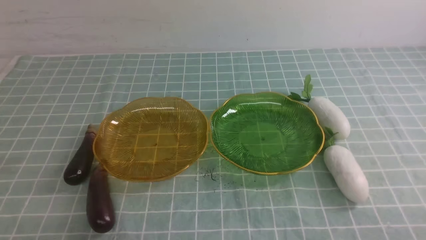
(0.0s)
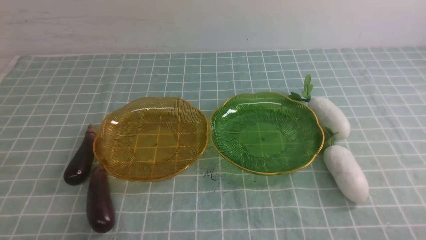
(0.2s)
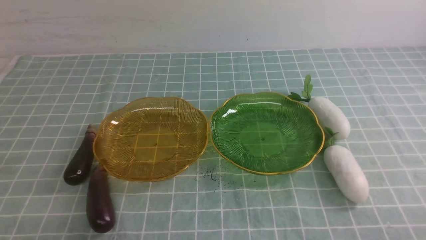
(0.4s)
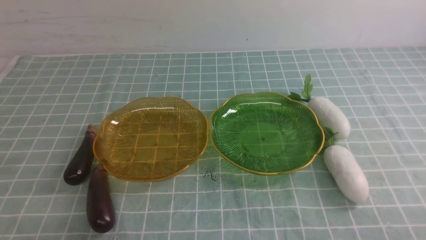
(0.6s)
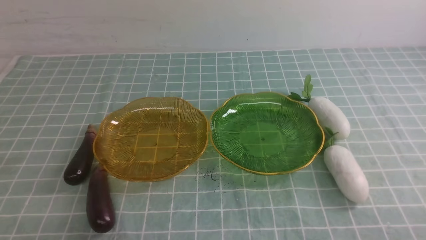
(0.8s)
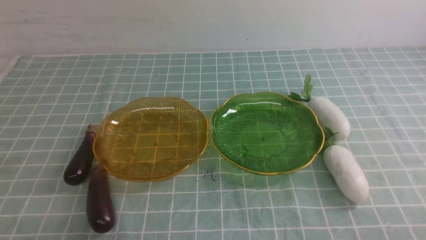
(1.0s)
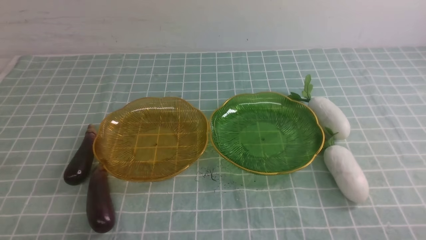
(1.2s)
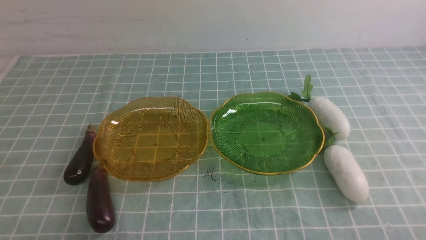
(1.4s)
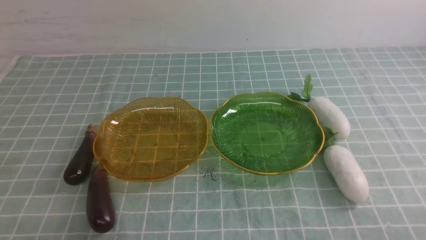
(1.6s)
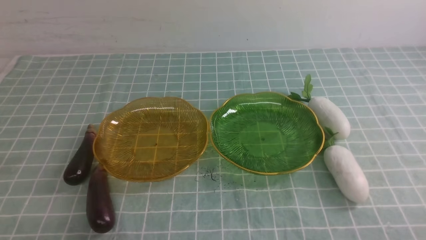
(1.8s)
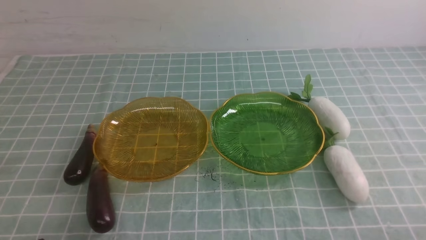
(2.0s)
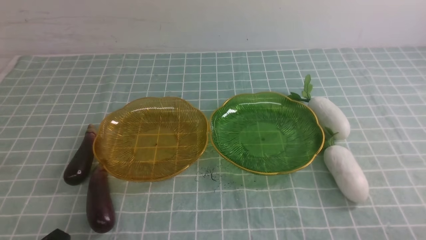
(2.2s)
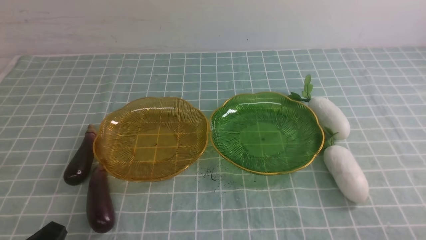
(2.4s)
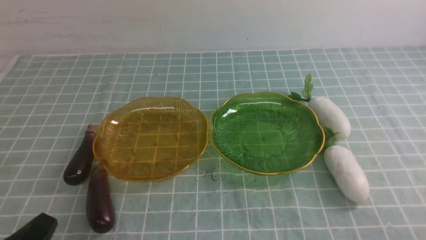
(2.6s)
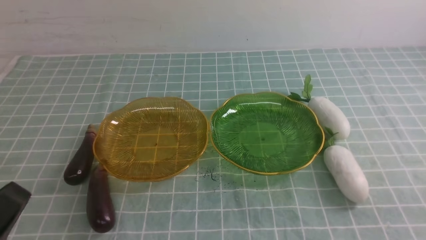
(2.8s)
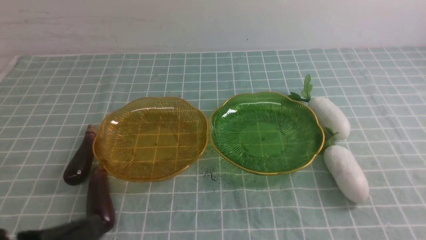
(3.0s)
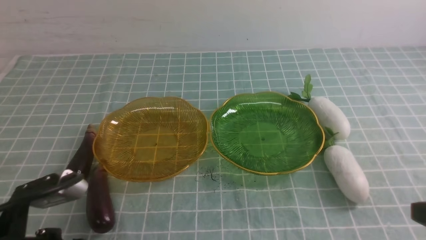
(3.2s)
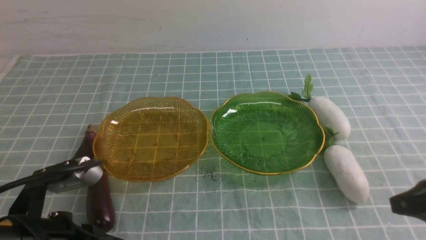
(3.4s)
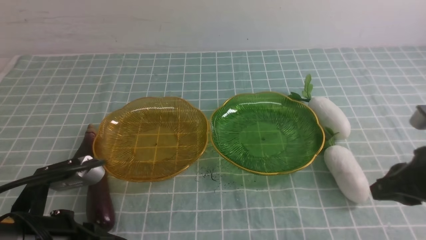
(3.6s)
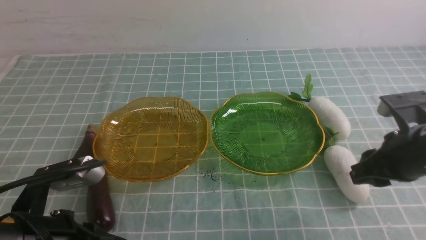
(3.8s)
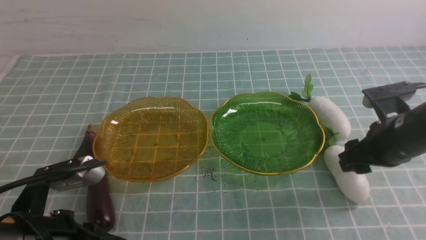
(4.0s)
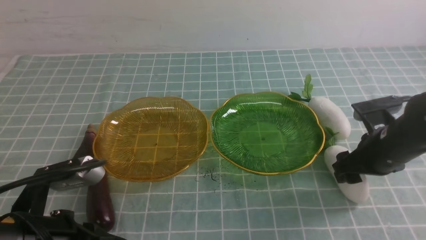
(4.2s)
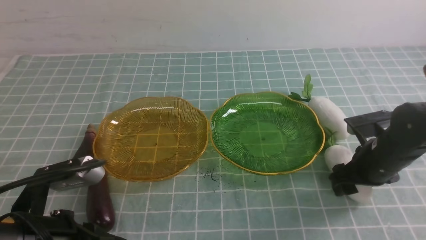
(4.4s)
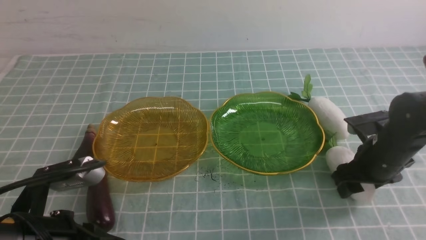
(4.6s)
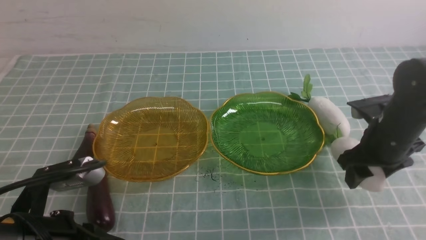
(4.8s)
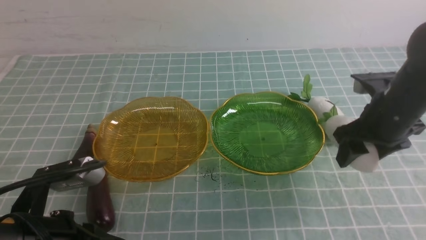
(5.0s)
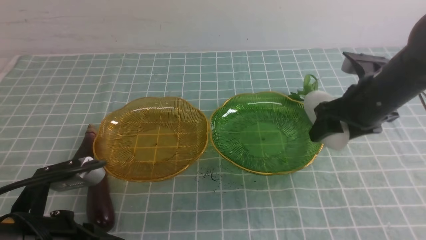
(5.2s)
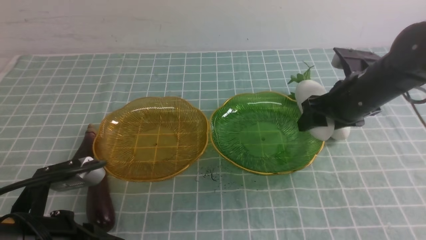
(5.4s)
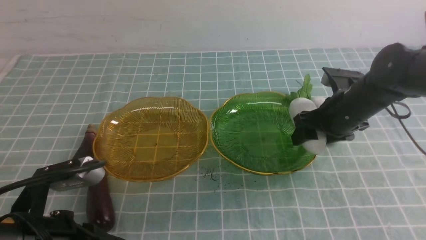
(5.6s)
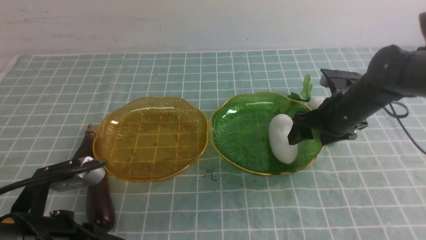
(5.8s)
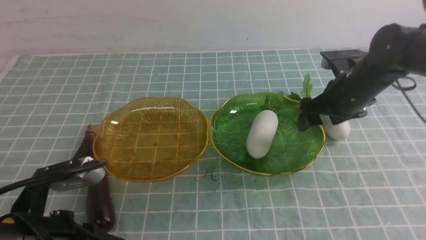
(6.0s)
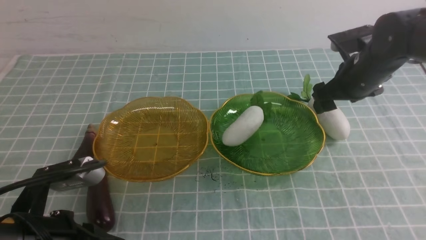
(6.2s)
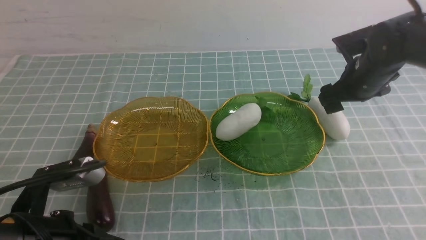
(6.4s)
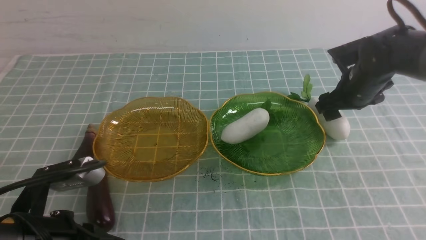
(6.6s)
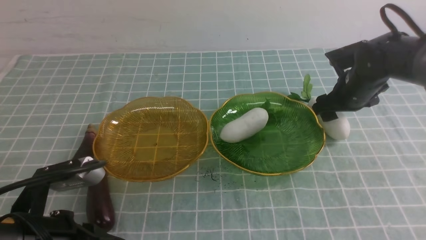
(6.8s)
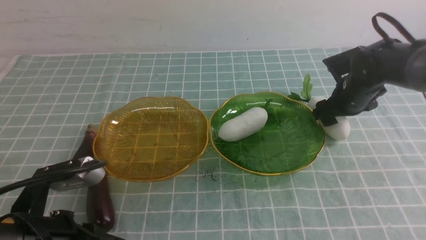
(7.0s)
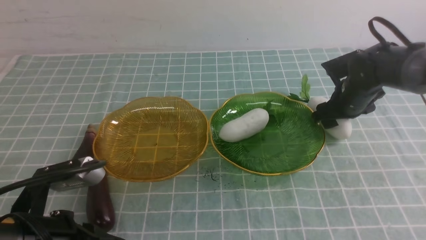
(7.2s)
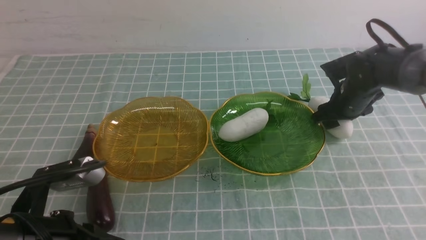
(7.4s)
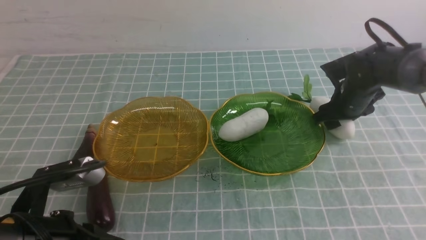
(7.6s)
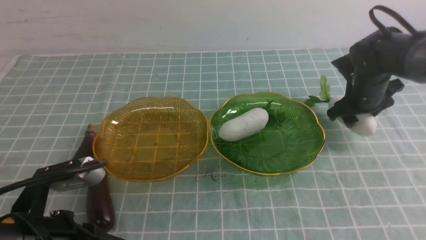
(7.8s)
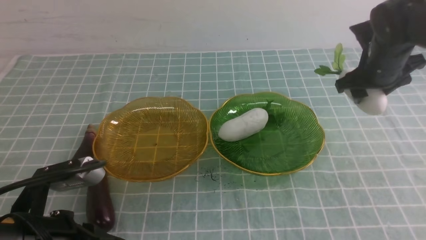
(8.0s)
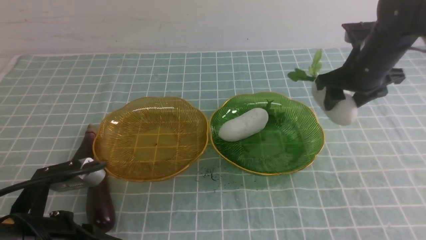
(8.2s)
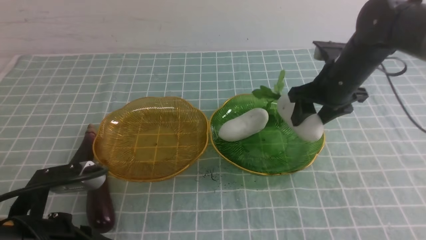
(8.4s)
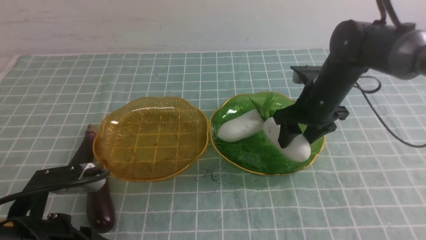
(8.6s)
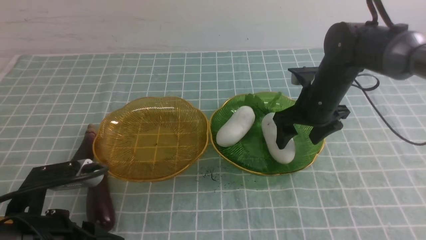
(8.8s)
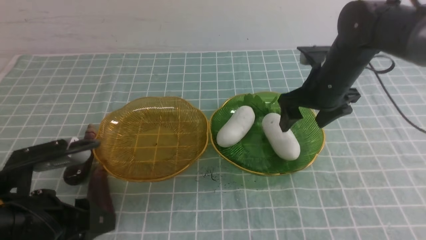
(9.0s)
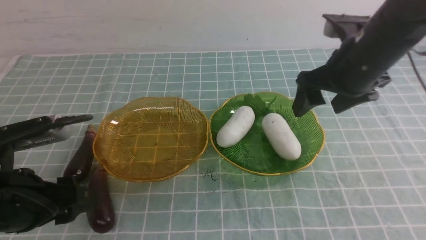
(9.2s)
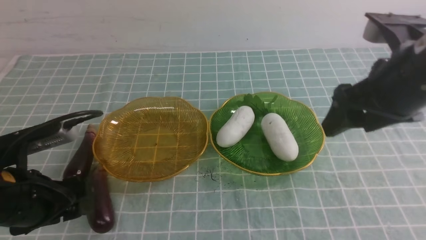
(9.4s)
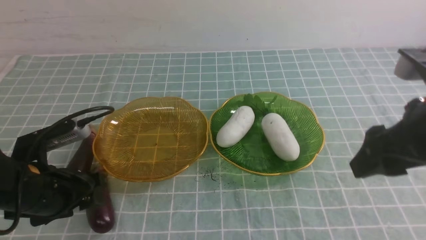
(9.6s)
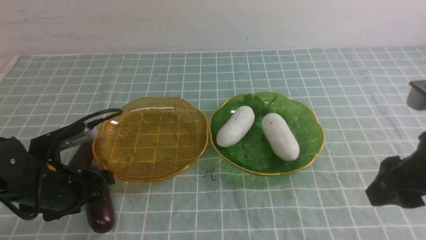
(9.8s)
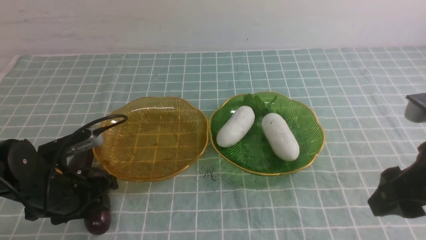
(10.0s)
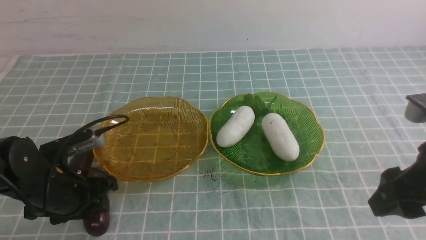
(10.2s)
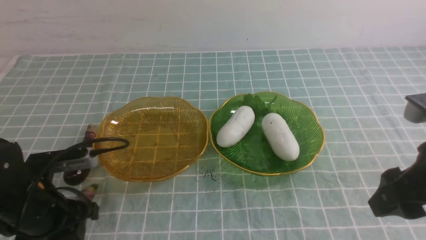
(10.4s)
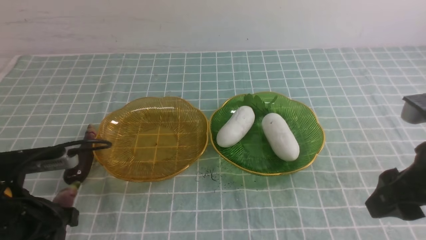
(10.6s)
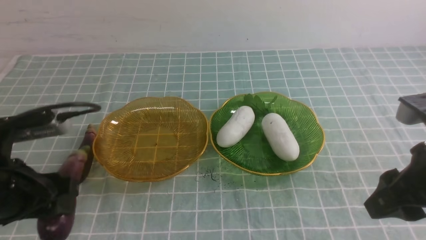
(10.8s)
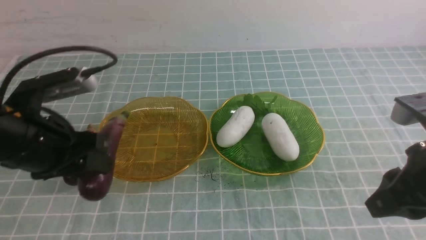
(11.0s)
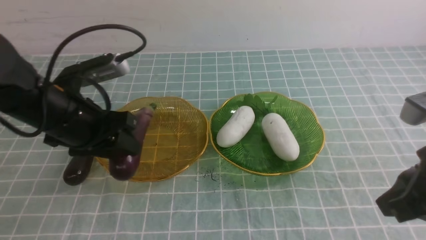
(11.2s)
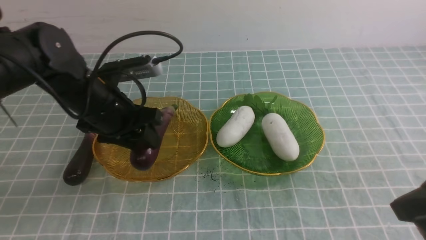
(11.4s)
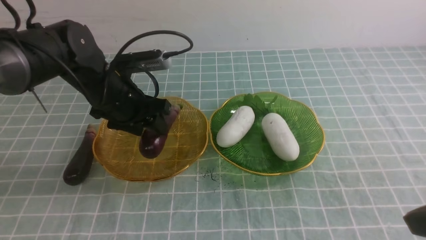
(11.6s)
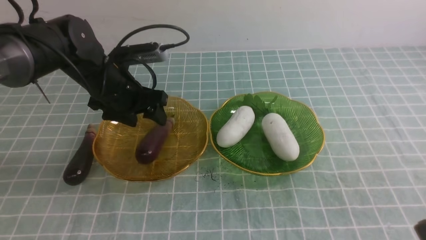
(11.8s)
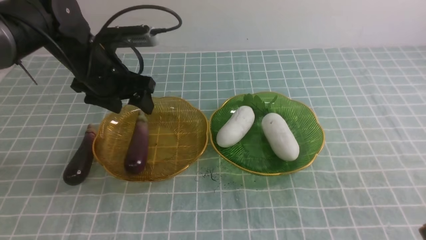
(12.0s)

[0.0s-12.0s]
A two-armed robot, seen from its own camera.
Step, 0.0s to 8.8s: use the right arm to grab a radish and put it into the right plate.
Step, 9.0s to 11.8s: use the left arm to grab an eggplant and put it into the left plate.
0.0s to 1.6s: Neither gripper changes place.
1.6s to 3.0s: The left gripper shifts approximately 10 cm upward.
3.0s to 4.4s: The left gripper heads forward, covering approximately 5 cm. The right gripper shifts approximately 25 cm forward and downward, and opens up.
4.4s to 6.0s: The right gripper travels forward and upward by some 10 cm.
6.0s to 7.6s: The right gripper moves about 5 cm.
7.6s to 9.0s: The right gripper swings up and down, some 10 cm each way, with 2 reversals, while the left gripper opens.
9.0s to 10.4s: The right gripper travels backward by some 20 cm. Meanwhile the left gripper travels forward by about 5 cm.
10.4s to 12.0s: The right gripper heads backward, covering approximately 10 cm, and closes up; the left gripper moves forward and upward, roughly 20 cm, and opens up.

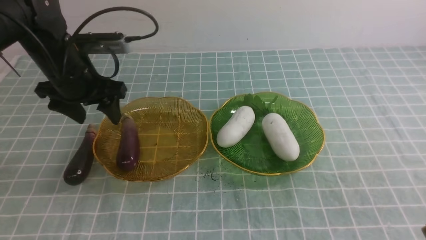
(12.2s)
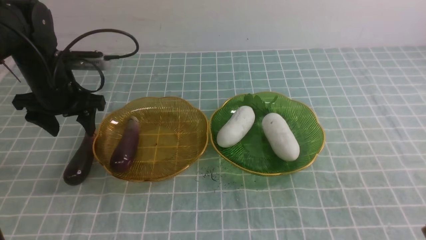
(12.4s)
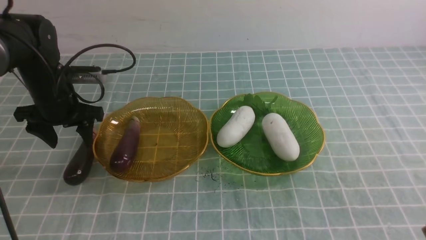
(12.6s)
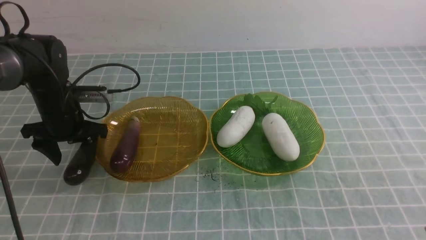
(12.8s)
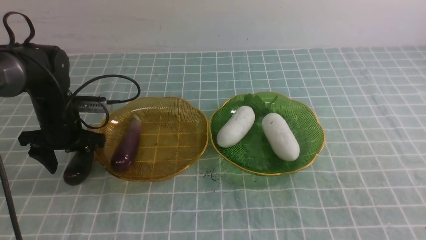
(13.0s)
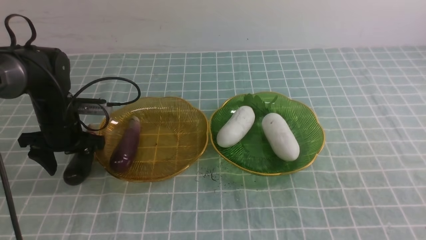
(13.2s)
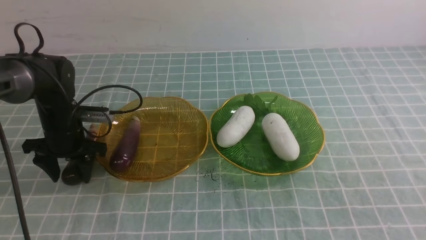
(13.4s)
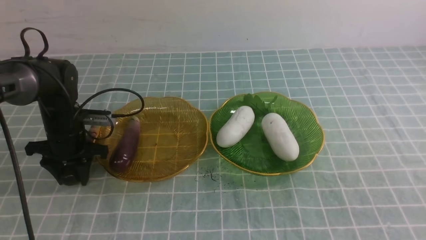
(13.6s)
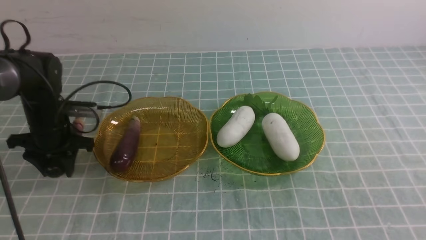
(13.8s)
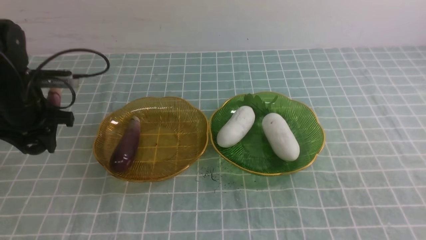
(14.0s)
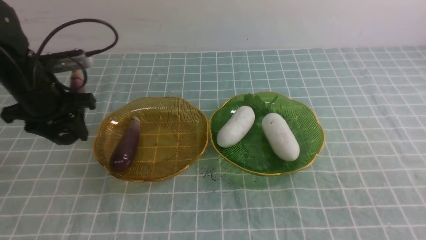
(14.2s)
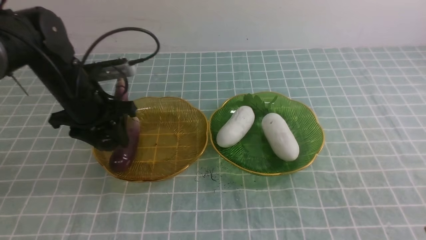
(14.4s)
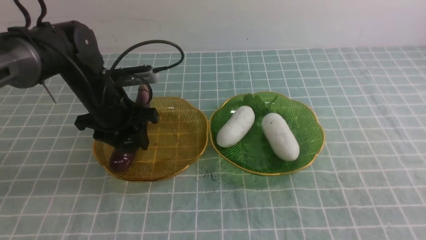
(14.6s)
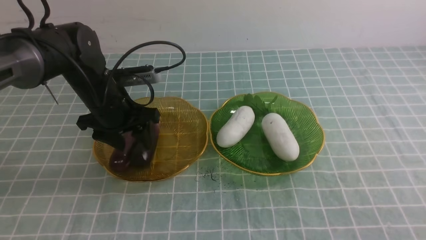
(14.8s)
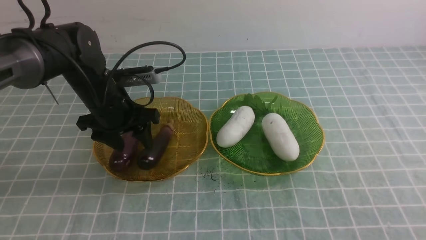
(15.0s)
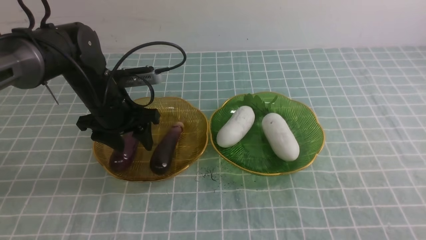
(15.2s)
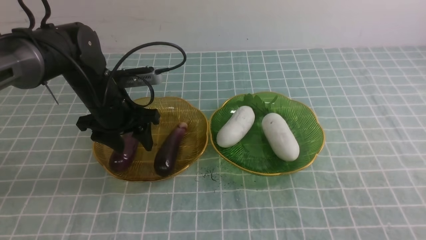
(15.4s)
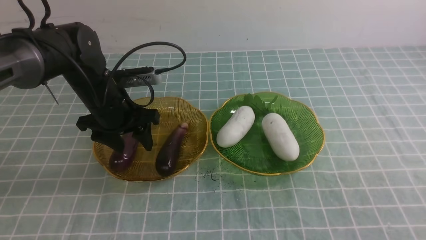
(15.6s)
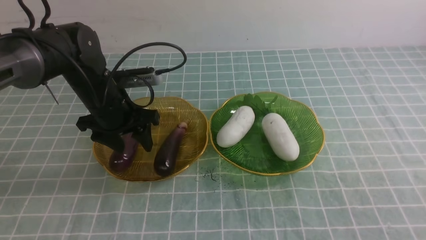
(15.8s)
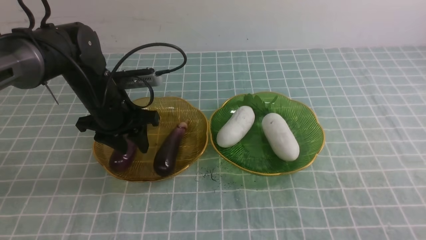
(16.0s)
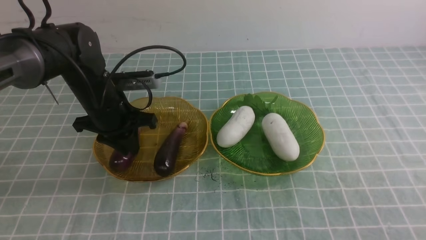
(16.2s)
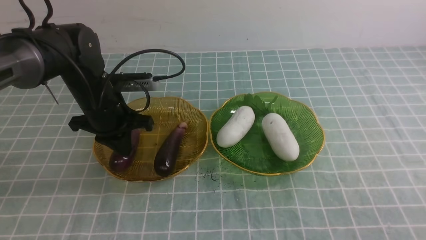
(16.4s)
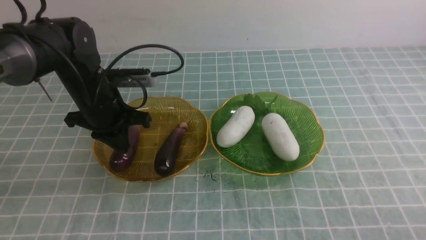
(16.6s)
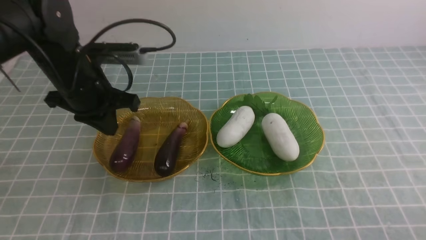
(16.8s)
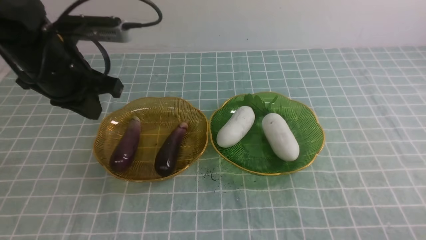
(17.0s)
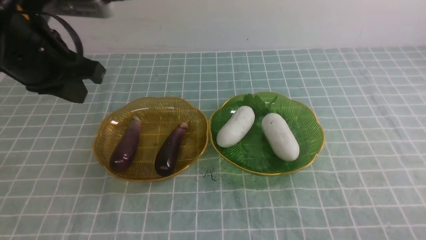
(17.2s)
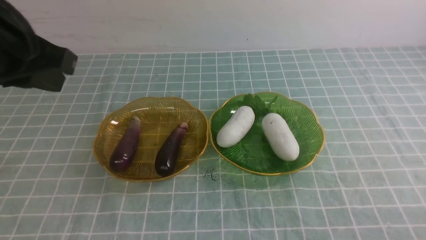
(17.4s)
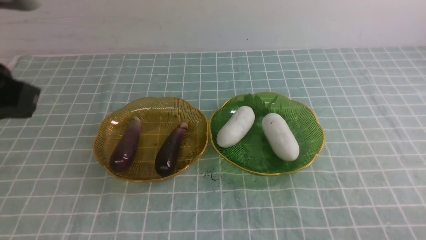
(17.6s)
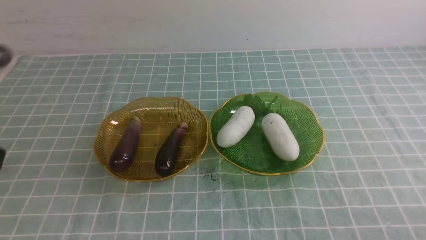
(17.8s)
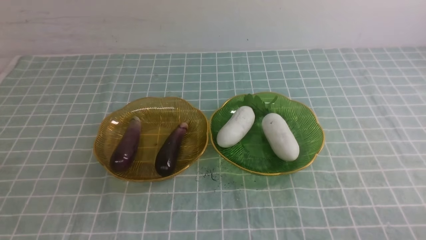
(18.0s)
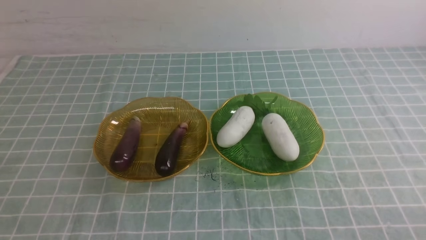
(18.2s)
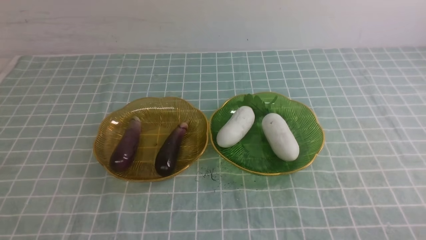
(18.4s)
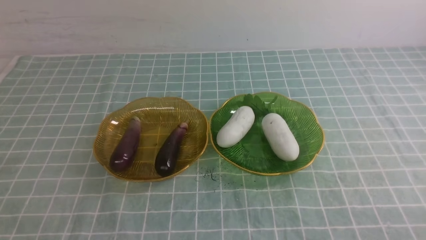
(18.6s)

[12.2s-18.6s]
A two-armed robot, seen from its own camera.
Step, 12.2s to 15.0s: use the left arm to grab an eggplant and put it into the left plate.
12.2s to 13.8s: The left gripper shifts approximately 10 cm downward and to the left, and closes up.
13.8s to 15.4s: The right gripper shifts about 5 cm downward, while the left gripper shifts about 10 cm to the right.
15.4s to 17.0s: The right gripper heads downward, covering some 10 cm. Meanwhile the left gripper is displaced upward and backward by approximately 15 cm, and closes up.
17.0s to 18.6s: The left gripper moves backward, some 30 cm.
